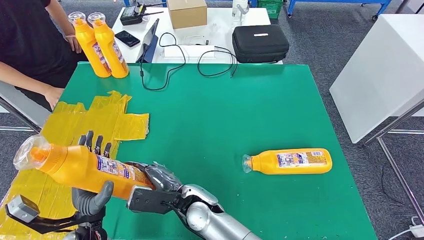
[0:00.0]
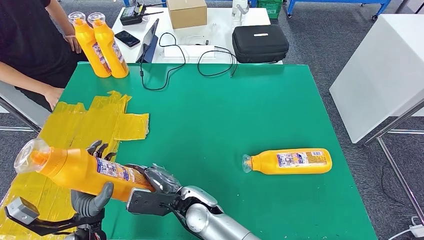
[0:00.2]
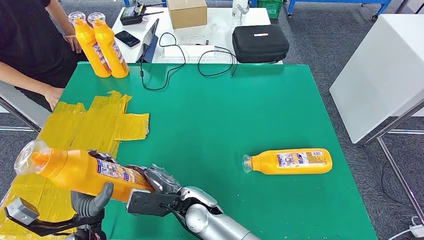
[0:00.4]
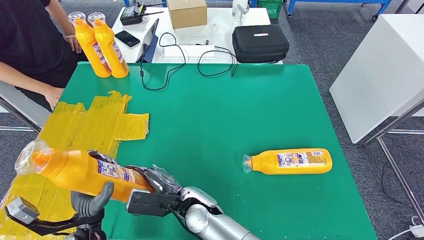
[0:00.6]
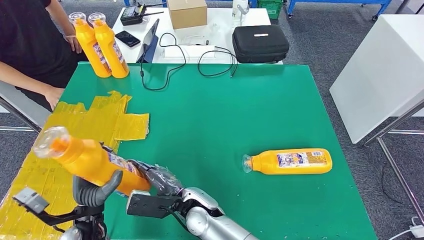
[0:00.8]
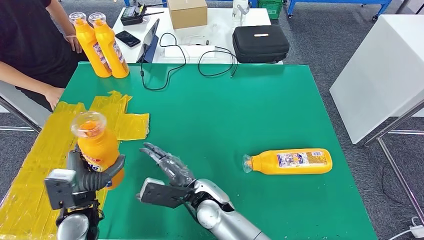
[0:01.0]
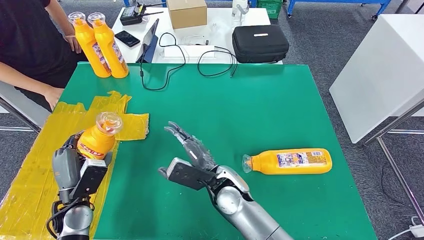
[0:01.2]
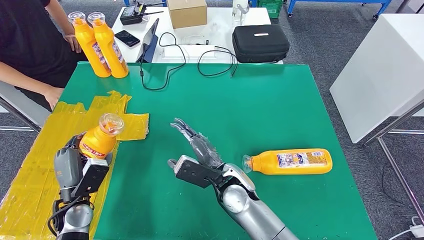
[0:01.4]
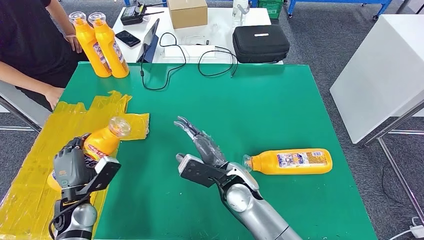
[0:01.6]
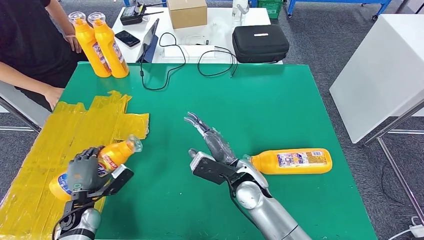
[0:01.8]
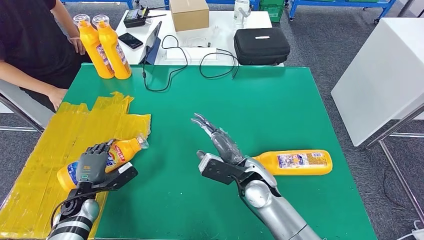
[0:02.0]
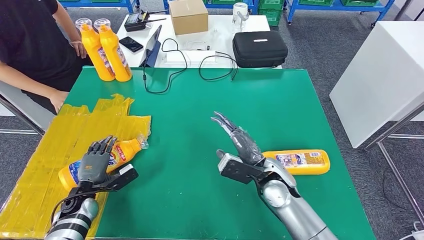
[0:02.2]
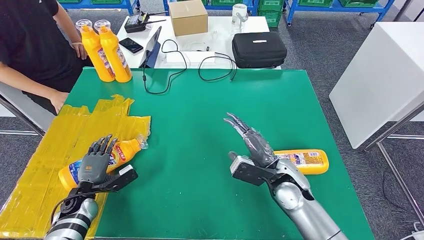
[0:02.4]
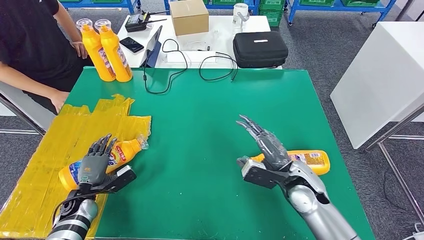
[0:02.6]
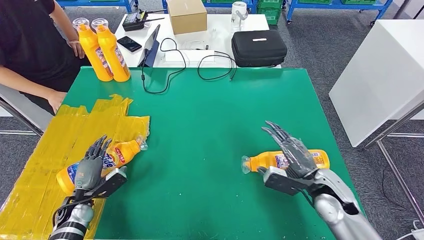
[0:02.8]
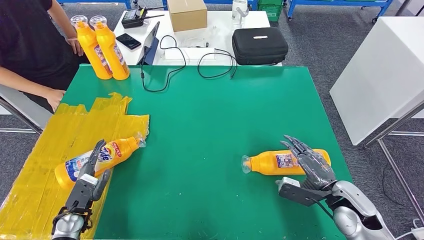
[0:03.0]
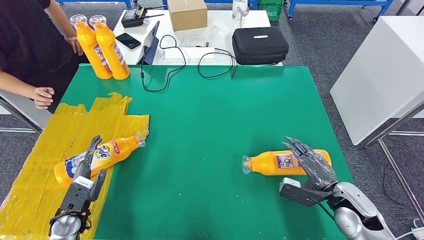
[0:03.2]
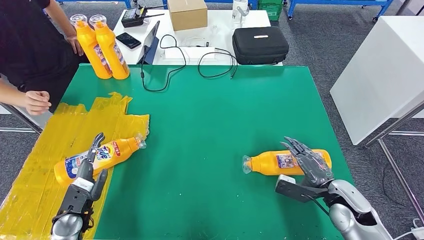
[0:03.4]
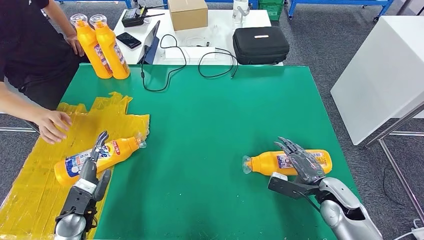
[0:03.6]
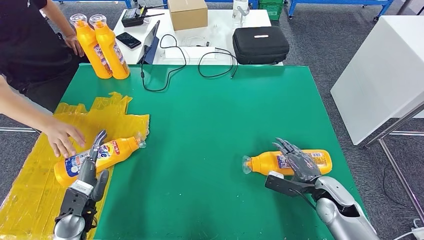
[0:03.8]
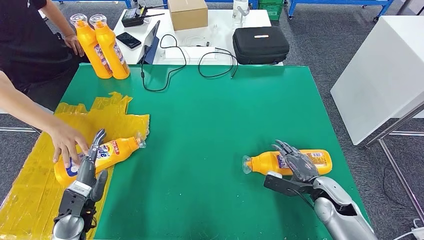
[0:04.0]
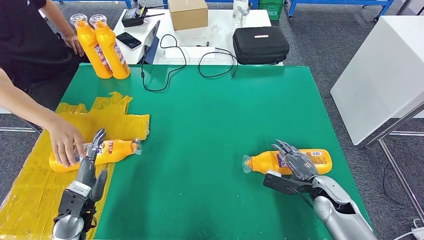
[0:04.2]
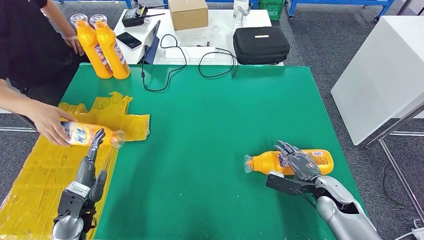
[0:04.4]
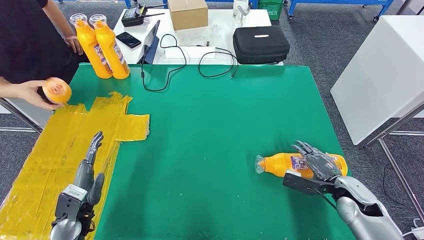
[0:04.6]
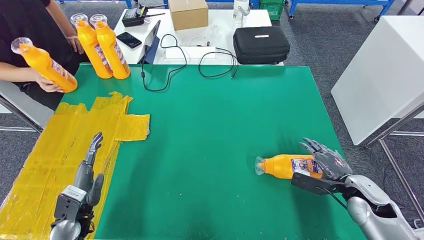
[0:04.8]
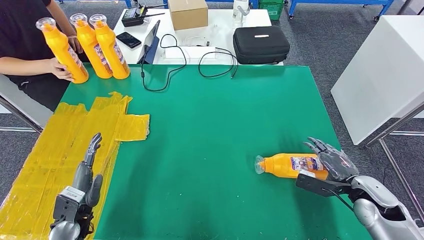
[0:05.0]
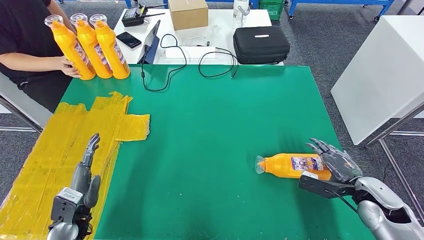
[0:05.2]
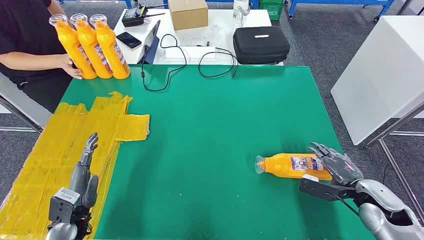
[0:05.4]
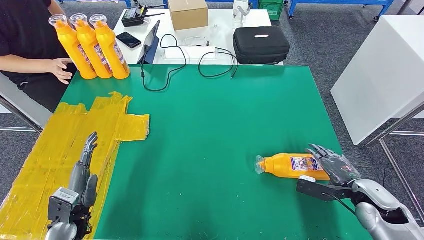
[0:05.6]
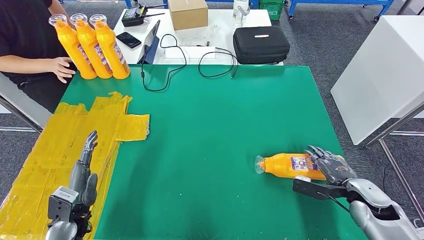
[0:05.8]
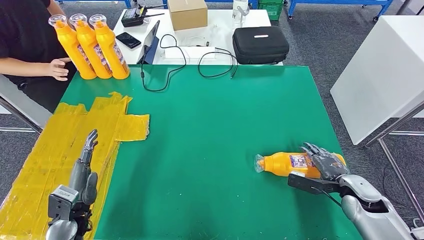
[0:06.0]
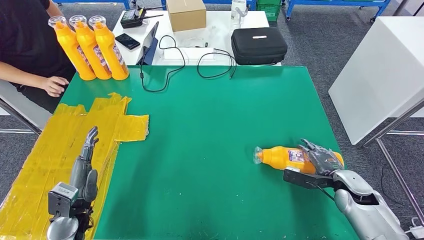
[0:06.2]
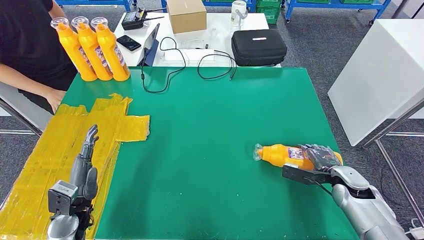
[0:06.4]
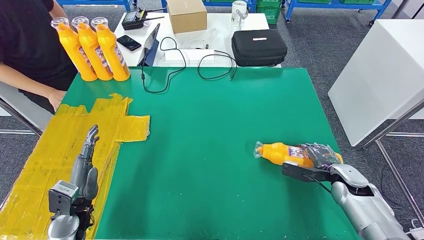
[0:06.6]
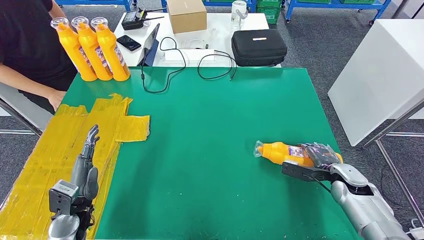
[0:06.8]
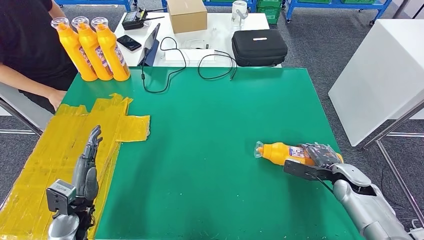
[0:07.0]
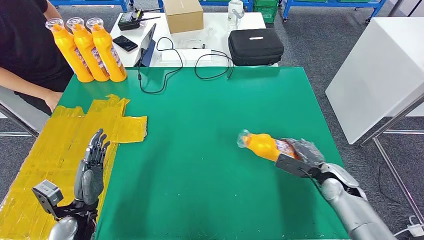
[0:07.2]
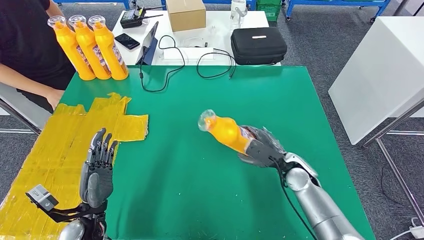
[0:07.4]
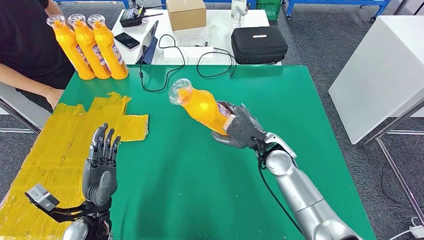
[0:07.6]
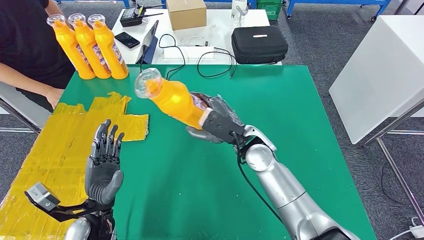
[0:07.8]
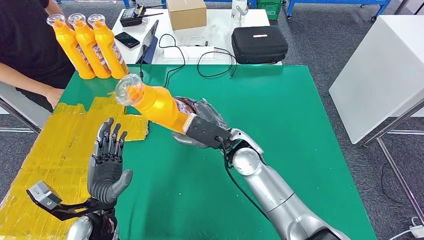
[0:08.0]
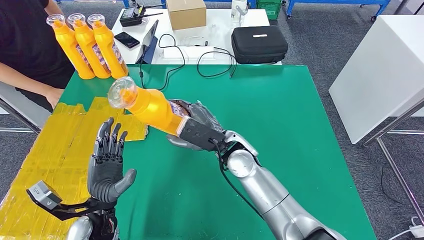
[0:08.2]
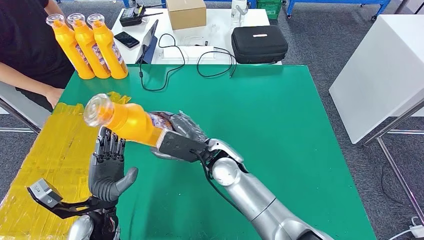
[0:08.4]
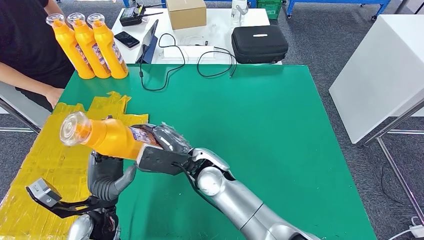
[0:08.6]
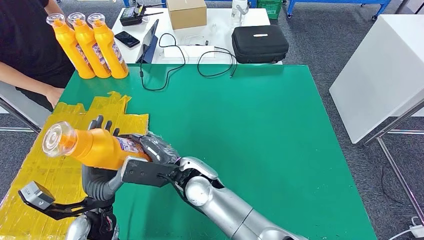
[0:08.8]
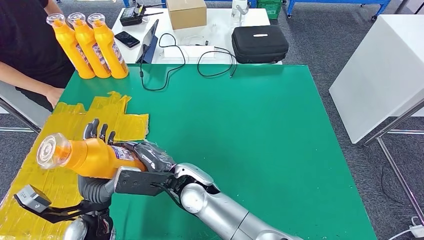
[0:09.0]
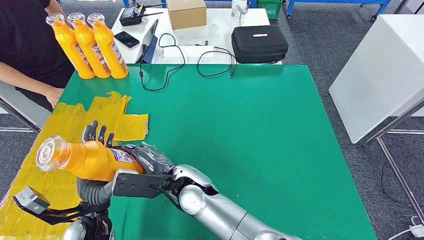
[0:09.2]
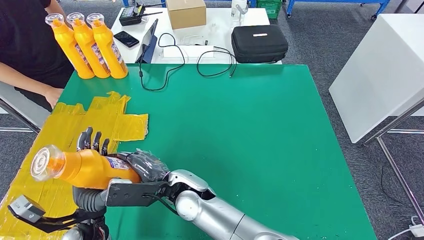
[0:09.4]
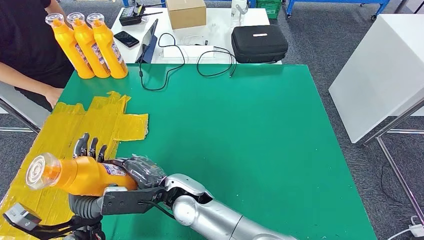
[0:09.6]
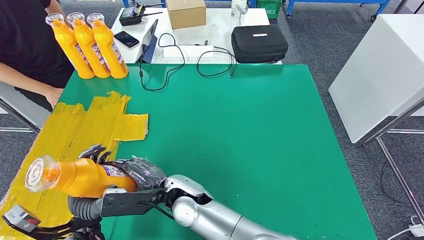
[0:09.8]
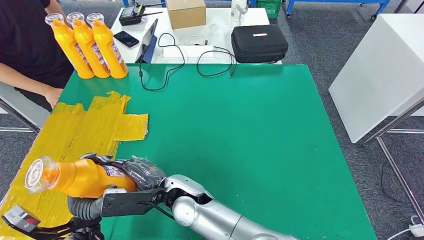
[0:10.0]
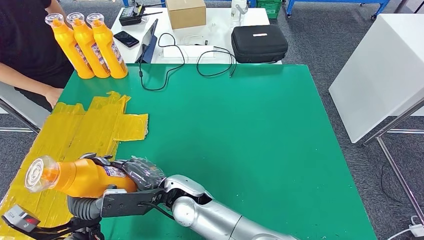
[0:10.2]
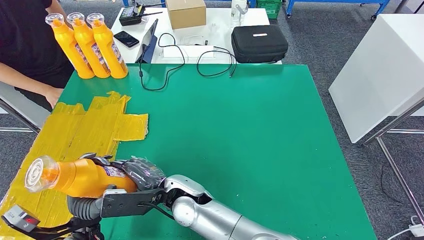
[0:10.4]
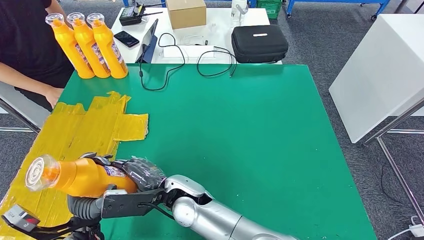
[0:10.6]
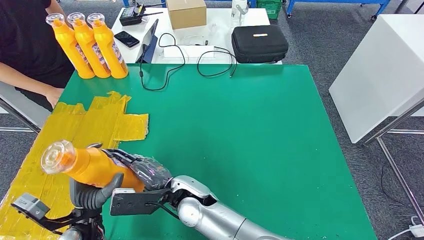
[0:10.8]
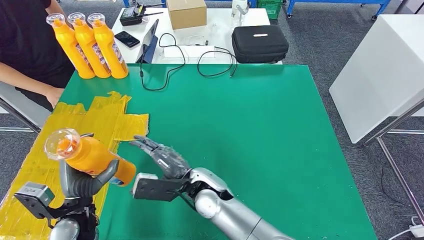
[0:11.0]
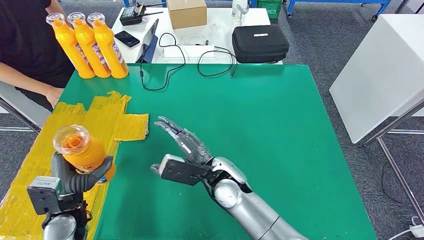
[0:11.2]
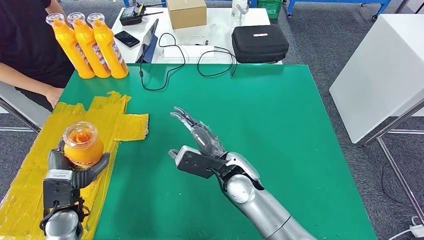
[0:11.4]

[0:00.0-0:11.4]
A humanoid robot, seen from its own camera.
Step, 0:01.0 to 0:04.4: Flip the fast-moving consumer goods bottle to the front side.
Step, 0:04.6 to 0:09.8: Pick up the fast-moving consumer goods bottle from the table.
0:00.0 to 0:01.4: The left hand shifts roughly 10 cm to the left and forward, while the right hand goes about 10 cm to the right.
0:04.2 to 0:05.6: The right hand travels to the right by about 10 cm.
0:08.6 to 0:10.0: The right hand goes about 10 cm backward and to the left; the left hand moves some 5 cm.
0:10.0 to 0:11.4: The right hand heads to the right and forward, covering roughly 15 cm. Meanwhile the left hand moves to the left, some 5 cm.

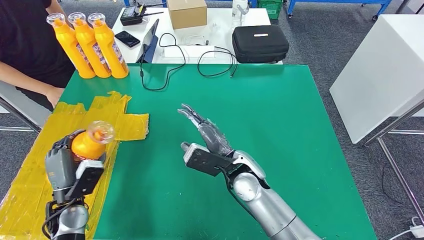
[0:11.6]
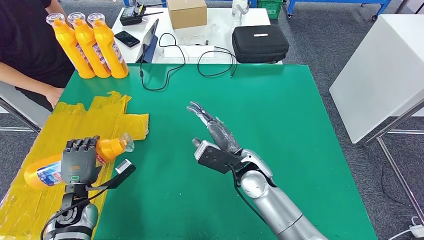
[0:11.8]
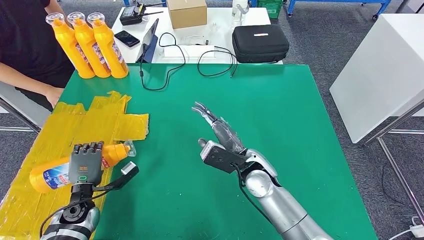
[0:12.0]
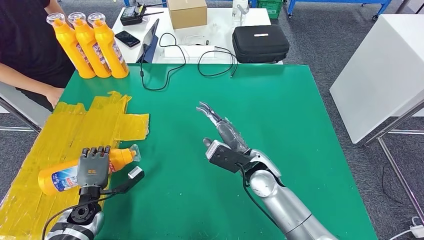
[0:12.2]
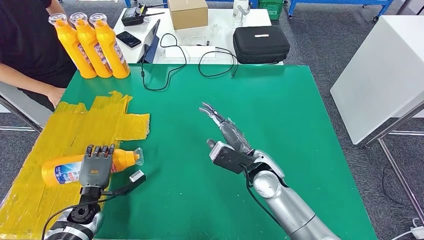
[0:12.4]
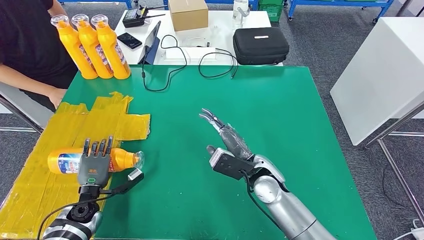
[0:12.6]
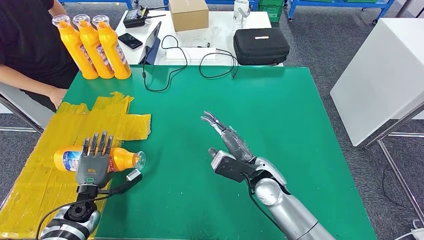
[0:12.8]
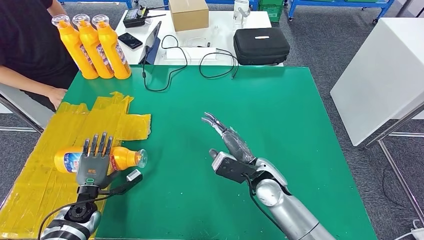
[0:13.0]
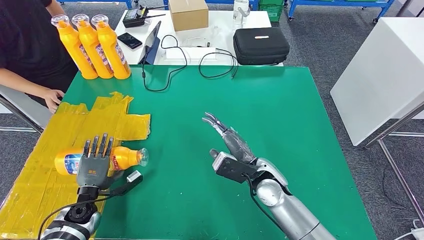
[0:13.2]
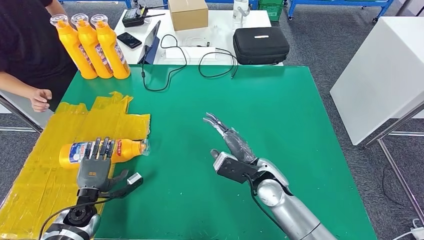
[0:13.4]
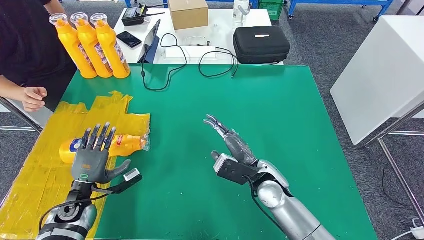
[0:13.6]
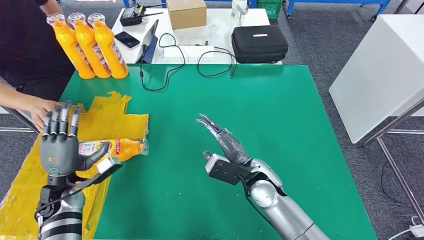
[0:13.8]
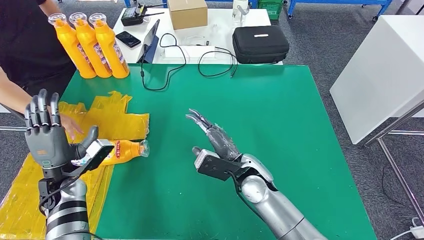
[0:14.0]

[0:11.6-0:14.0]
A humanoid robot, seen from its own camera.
Step, 0:11.6 to 0:14.0: Flip the fast-moving consumer goods bottle to the front side.
